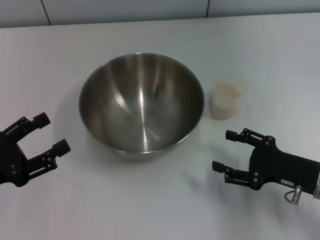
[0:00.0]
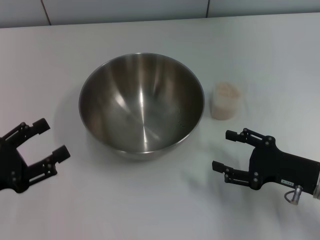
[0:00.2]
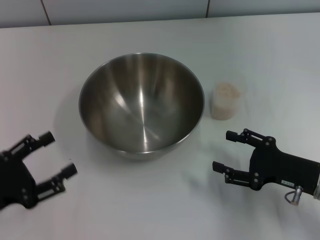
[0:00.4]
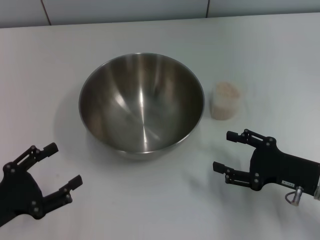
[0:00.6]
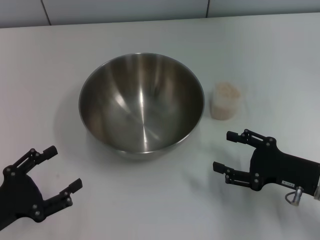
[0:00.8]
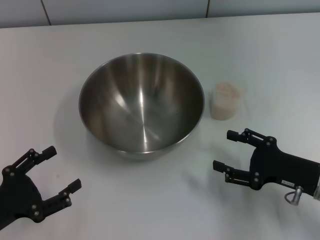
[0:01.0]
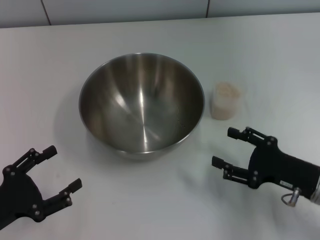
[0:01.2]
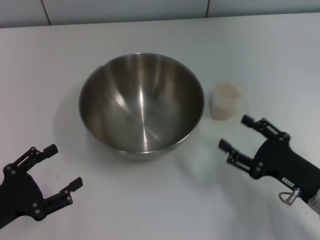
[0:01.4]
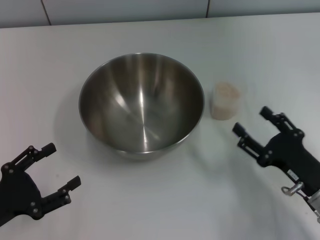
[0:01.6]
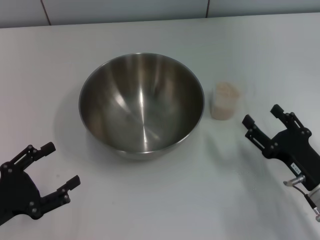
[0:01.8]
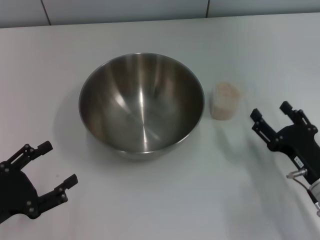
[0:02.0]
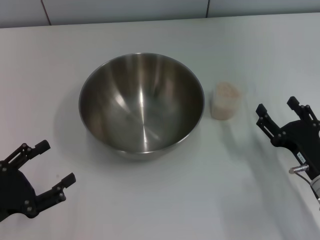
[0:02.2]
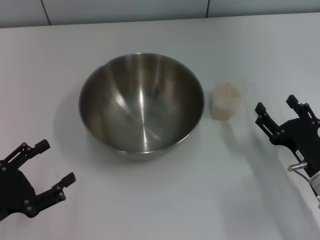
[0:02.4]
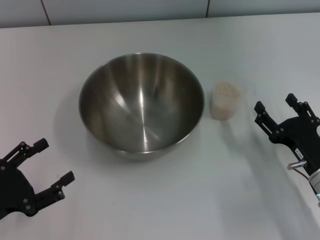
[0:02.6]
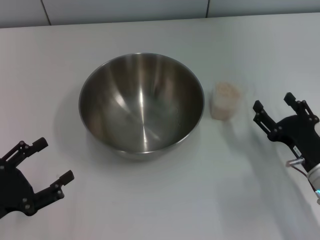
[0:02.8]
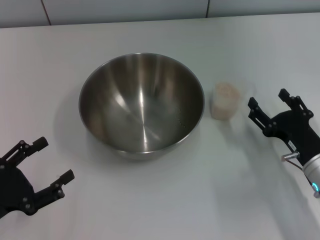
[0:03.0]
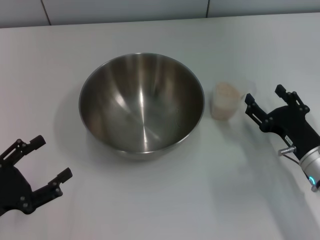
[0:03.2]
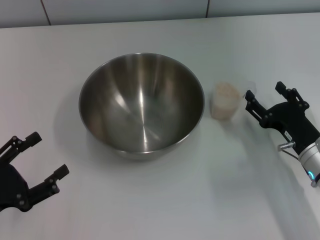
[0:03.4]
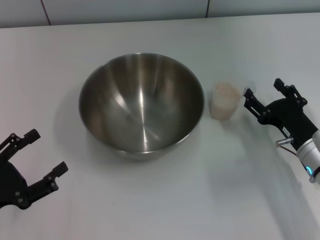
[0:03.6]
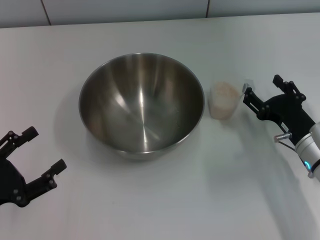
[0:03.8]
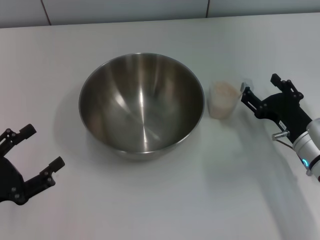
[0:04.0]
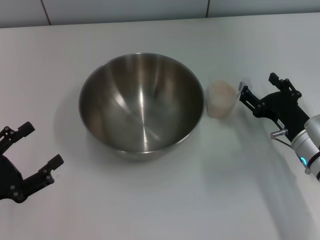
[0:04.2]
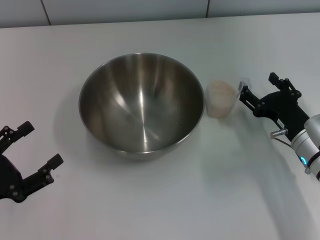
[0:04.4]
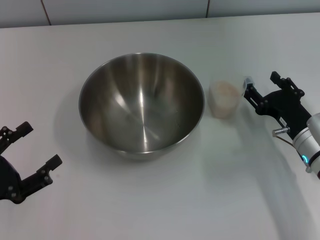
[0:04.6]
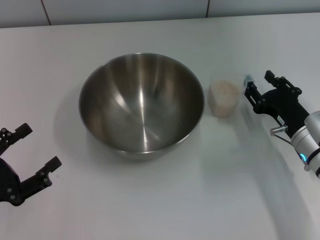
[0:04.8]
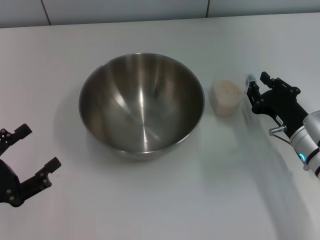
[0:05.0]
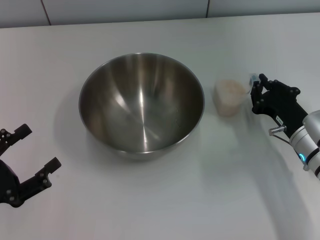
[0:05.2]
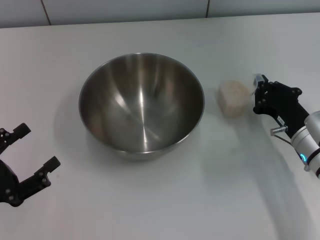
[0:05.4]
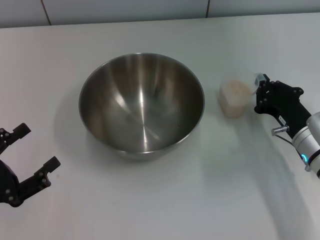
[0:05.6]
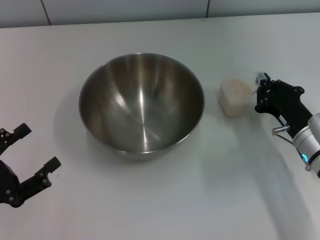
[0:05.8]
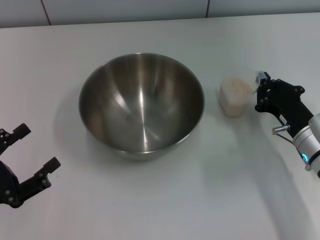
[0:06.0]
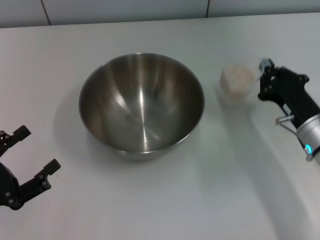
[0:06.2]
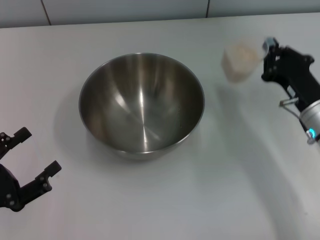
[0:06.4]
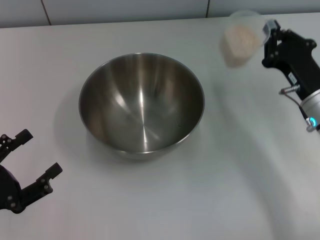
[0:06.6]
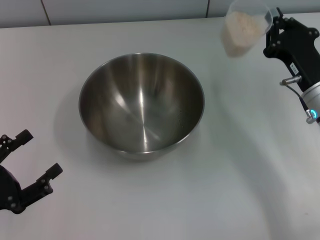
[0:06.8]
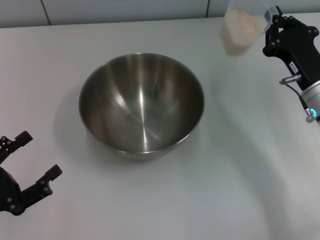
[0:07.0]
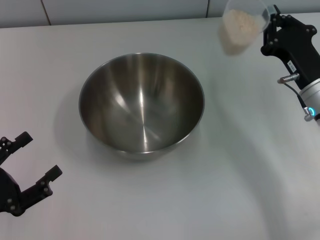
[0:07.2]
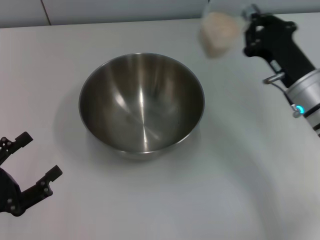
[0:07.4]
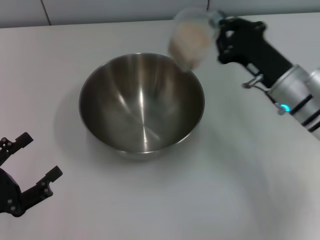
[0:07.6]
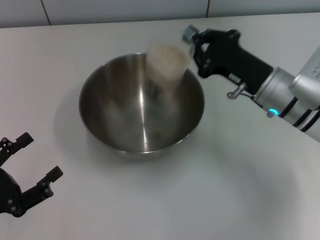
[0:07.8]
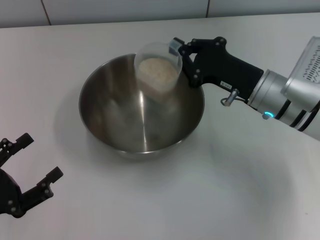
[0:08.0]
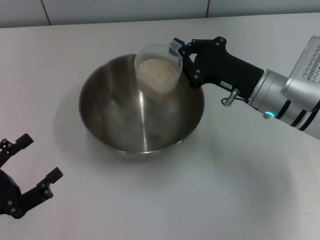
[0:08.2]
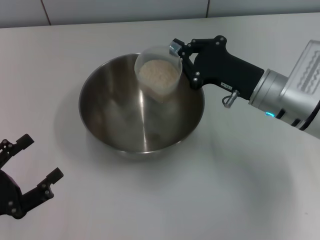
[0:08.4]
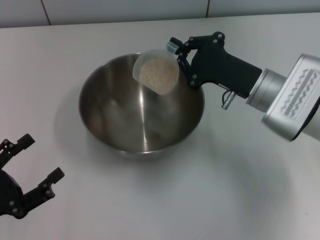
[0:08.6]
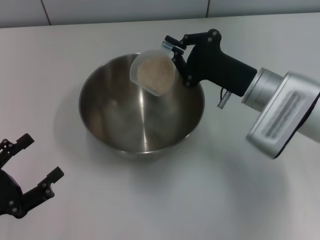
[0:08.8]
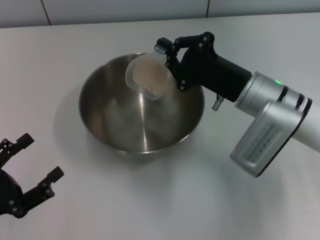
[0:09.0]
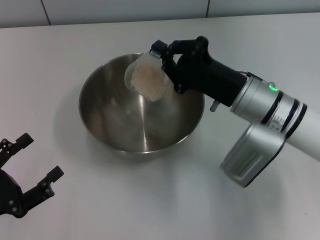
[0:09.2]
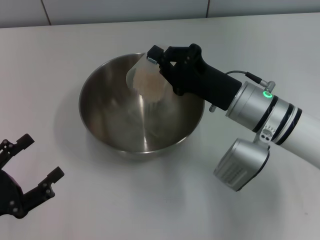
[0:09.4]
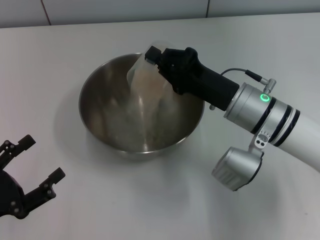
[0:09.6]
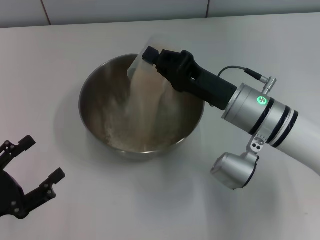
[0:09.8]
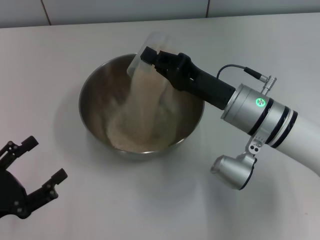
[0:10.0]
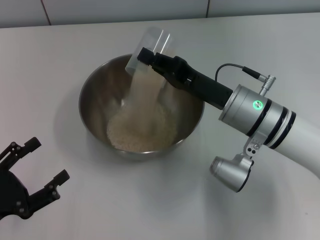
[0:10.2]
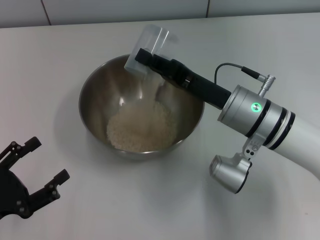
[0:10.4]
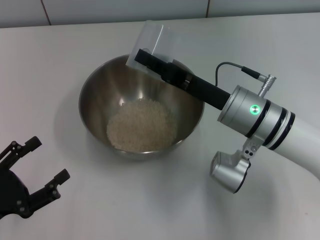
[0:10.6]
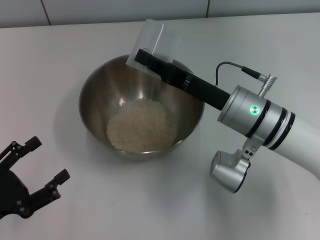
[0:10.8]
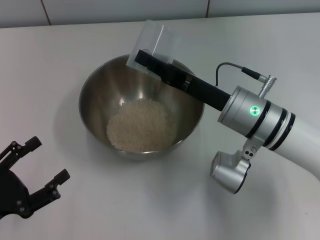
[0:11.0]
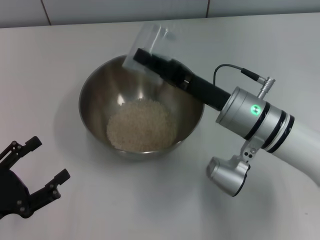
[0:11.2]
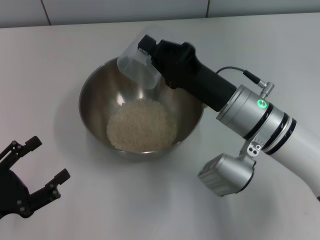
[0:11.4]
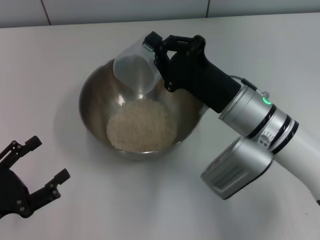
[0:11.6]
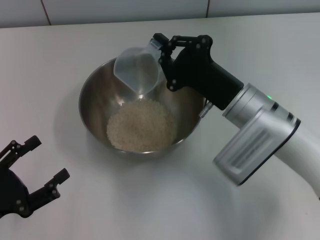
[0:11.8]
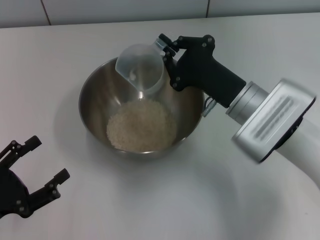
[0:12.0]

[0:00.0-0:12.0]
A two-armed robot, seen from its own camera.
Task of the whole recording: Place the bowl in the middle of the table with one hand and pour the rice from the grain cup into it with the other hand.
Step, 0:00.0 to 0:06.8: Pick up the cup with rice in it with the right gripper.
Step, 0:07.2 to 0:11.4: Pour the rice from the cup into the bowl with the right gripper.
0:01.6 to 0:03.0: The grippers stay close to where they were, moving slightly.
0:03.0 to 0:04.4: The grippers stay close to where they were, moving slightly.
0:04.4 to 0:06.0: The right gripper closes up.
0:06.0 to 0:07.6: The right gripper moves upward and forward, approximately 10 cm.

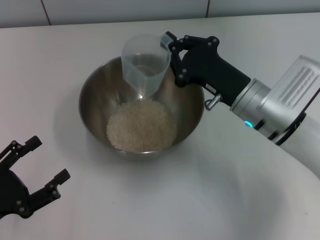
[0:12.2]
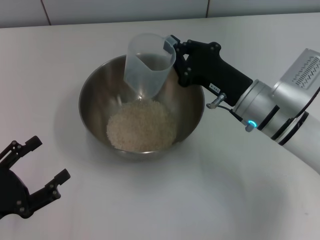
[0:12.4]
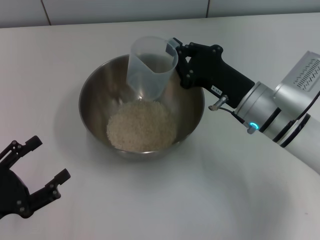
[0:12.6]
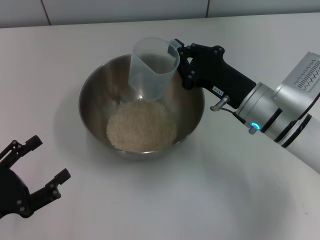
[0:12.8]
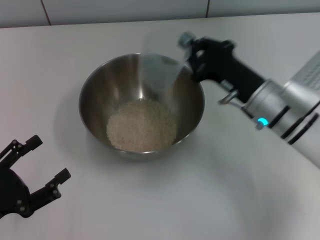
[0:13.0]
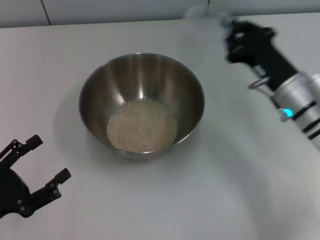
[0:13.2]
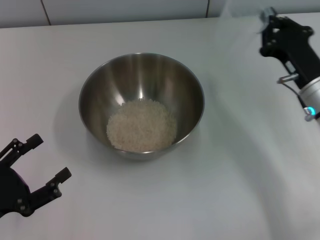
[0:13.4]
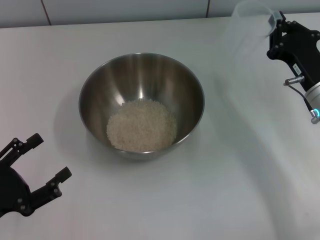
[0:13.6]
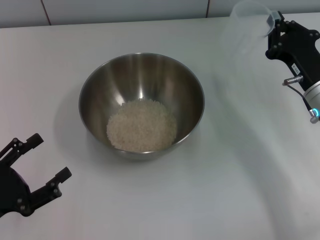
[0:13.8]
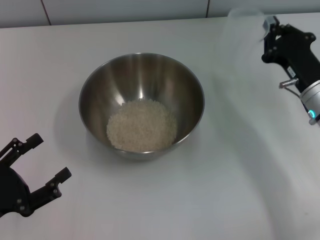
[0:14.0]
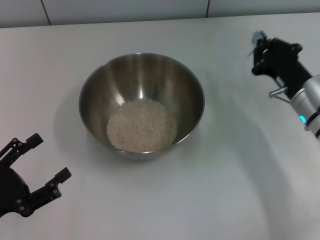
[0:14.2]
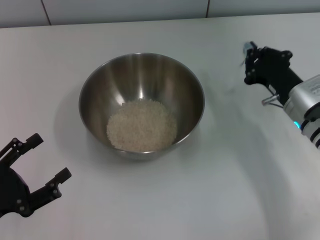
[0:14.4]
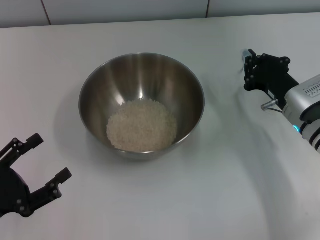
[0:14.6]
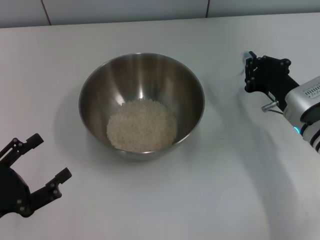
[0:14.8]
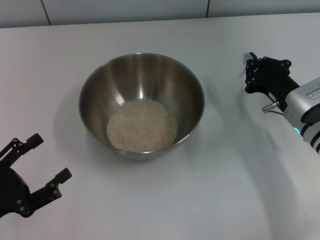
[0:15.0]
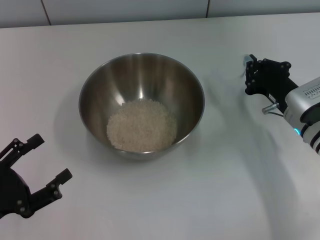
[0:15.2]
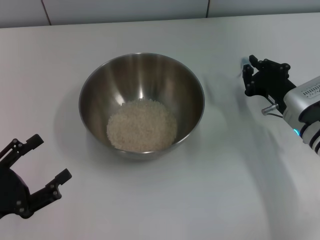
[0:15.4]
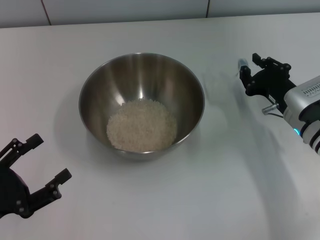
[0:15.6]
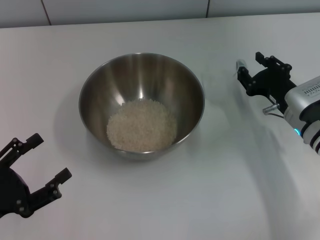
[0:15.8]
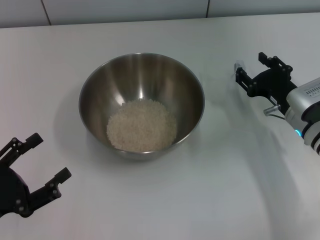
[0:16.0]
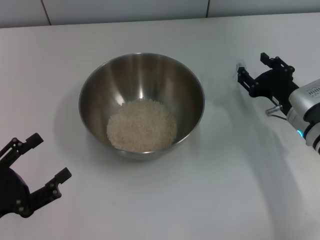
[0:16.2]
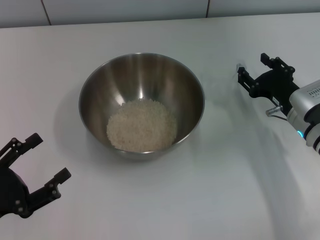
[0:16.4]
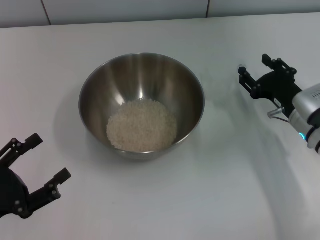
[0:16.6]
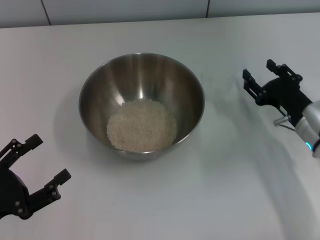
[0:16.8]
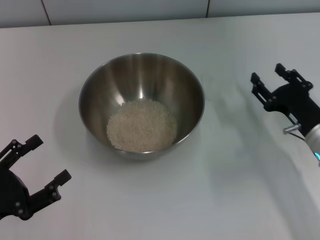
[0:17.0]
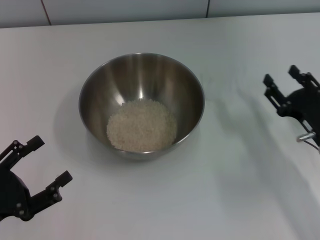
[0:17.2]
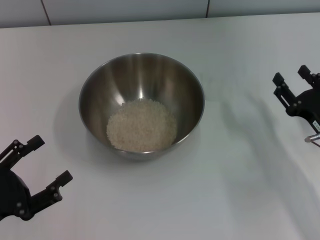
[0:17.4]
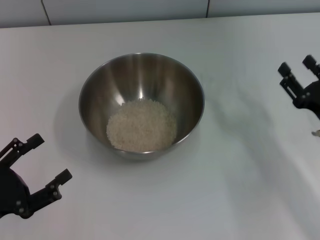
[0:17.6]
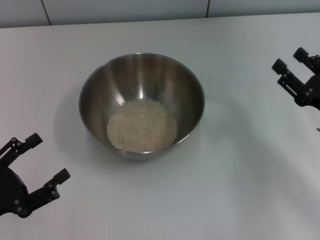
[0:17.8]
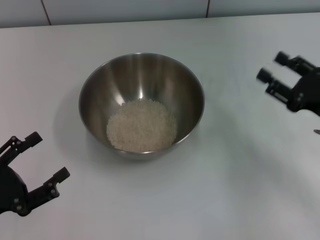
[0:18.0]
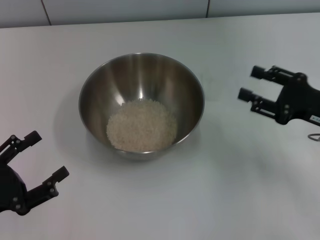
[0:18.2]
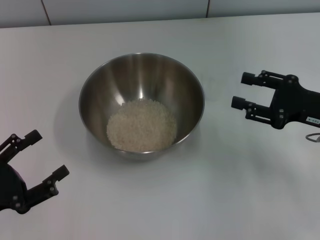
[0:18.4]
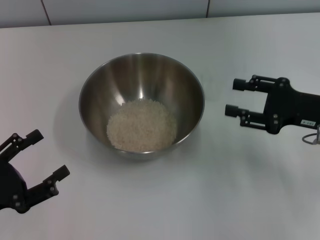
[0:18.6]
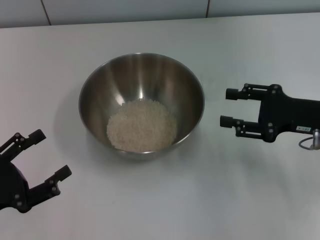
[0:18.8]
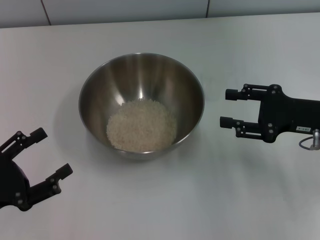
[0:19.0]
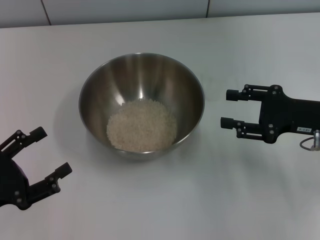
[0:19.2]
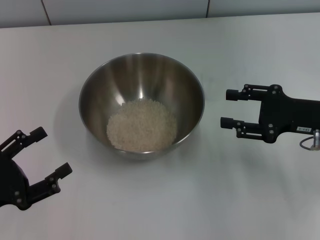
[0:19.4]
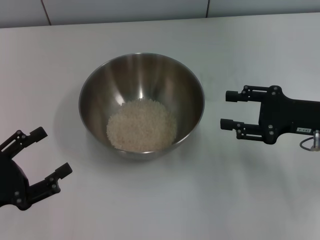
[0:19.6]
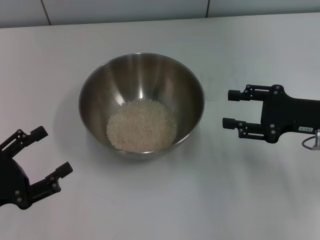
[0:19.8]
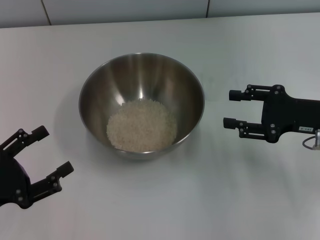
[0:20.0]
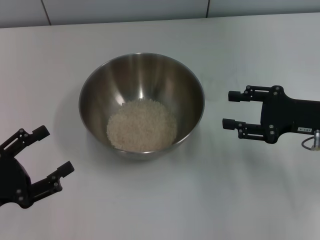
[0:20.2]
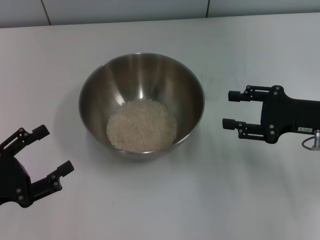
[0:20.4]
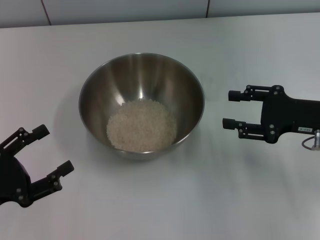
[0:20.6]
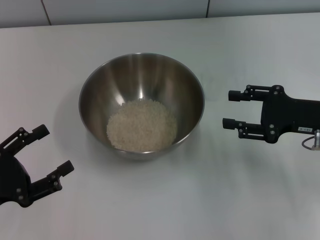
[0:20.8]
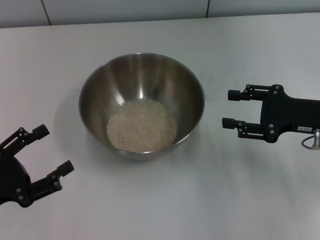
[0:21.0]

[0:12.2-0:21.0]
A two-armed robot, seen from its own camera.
Task of the whole recording: Place the bowl in the middle of the table with one hand and pour the rice from the grain cup into it with the other hand.
Step, 0:12.2 to 0:17.0: Place the cup on the table with the right gripper.
0:12.2 to 0:13.6: The right gripper moves to the right, about 10 cm.
0:15.2 to 0:16.6: The right gripper opens its fingers.
0:16.6 to 0:18.0: The right gripper goes some 5 cm to the right.
0:19.6 to 0:21.0: Both grippers stay about where they are.
